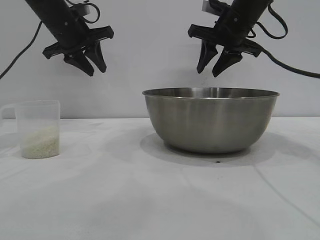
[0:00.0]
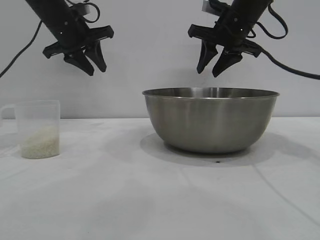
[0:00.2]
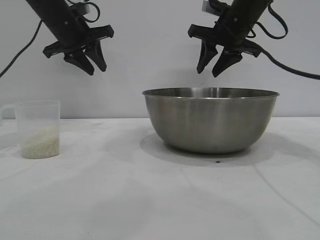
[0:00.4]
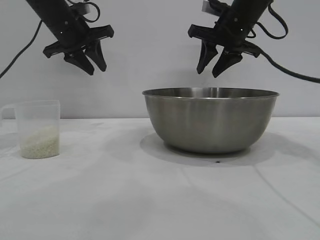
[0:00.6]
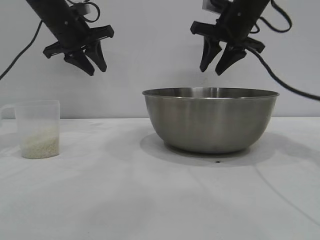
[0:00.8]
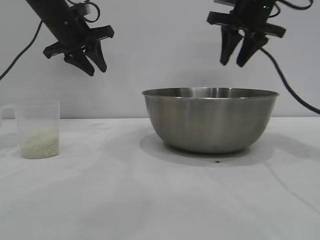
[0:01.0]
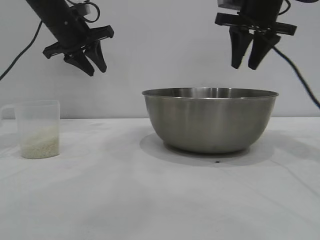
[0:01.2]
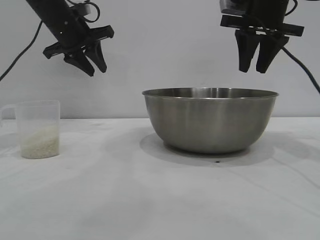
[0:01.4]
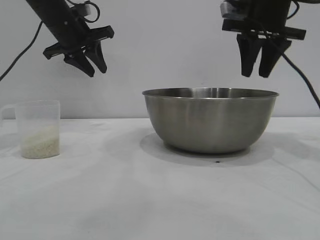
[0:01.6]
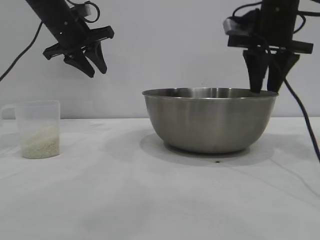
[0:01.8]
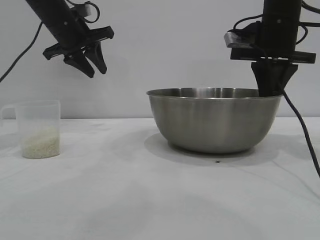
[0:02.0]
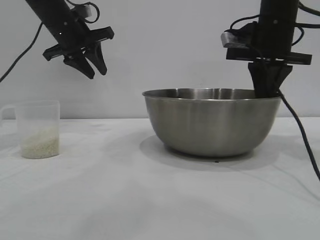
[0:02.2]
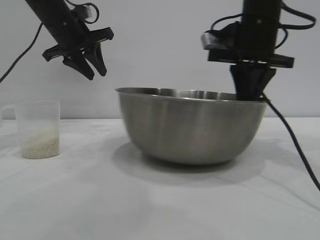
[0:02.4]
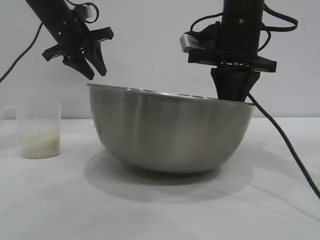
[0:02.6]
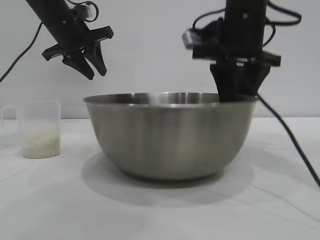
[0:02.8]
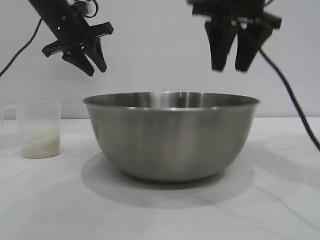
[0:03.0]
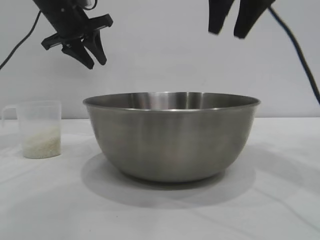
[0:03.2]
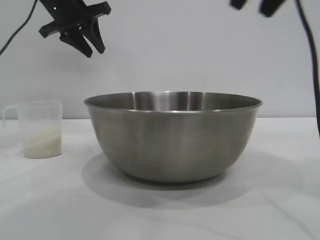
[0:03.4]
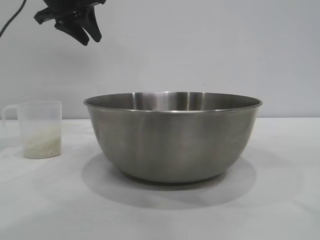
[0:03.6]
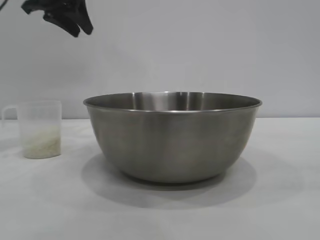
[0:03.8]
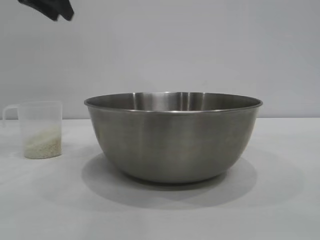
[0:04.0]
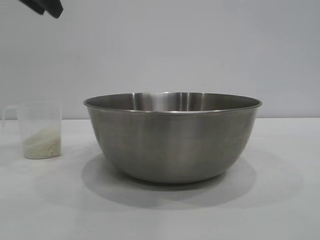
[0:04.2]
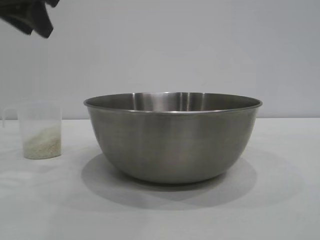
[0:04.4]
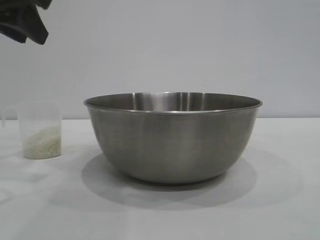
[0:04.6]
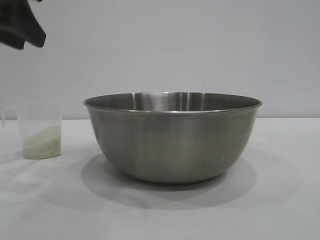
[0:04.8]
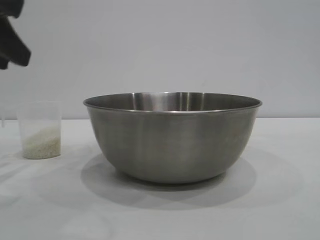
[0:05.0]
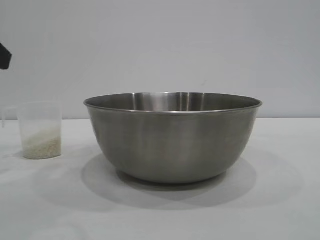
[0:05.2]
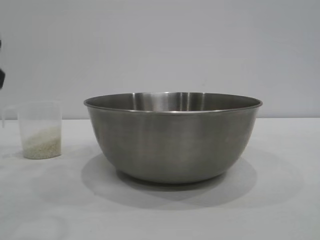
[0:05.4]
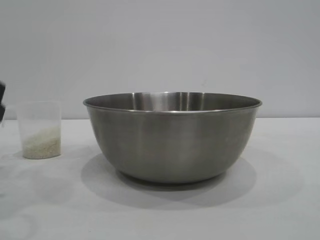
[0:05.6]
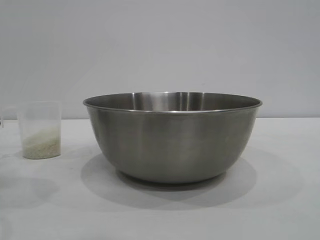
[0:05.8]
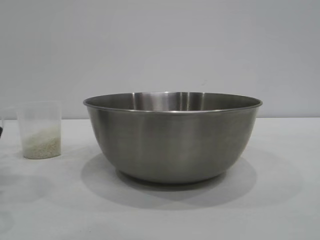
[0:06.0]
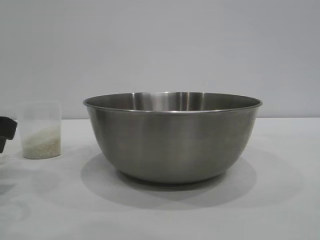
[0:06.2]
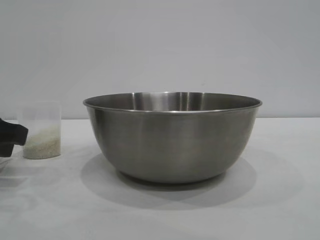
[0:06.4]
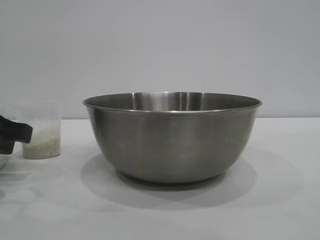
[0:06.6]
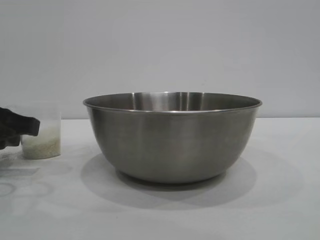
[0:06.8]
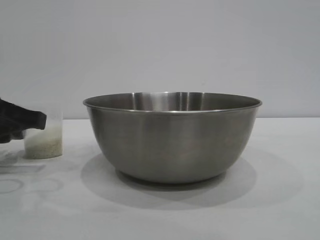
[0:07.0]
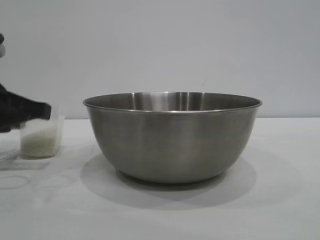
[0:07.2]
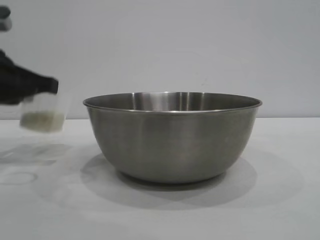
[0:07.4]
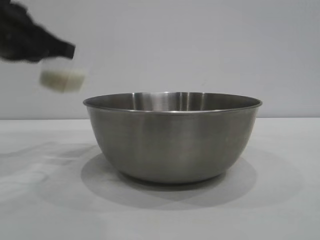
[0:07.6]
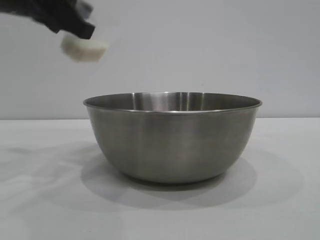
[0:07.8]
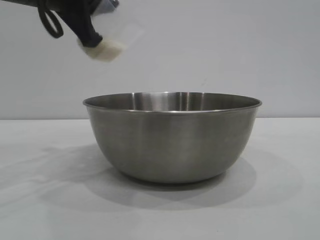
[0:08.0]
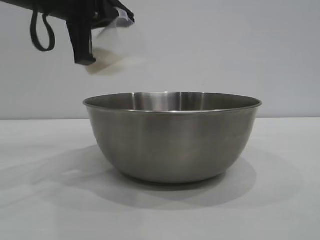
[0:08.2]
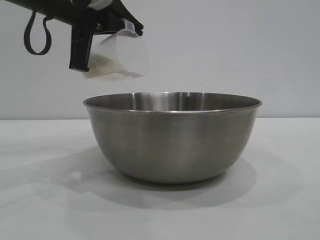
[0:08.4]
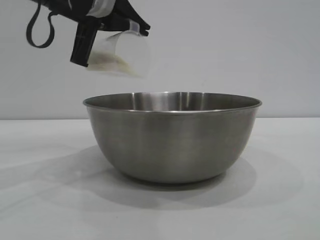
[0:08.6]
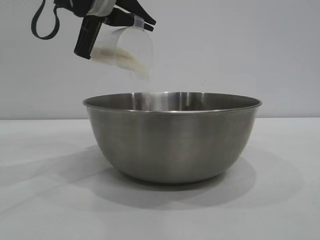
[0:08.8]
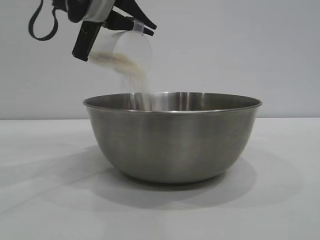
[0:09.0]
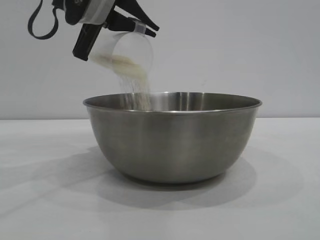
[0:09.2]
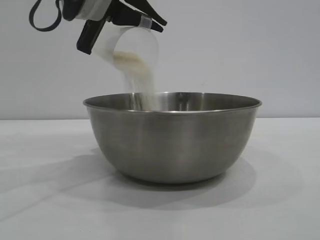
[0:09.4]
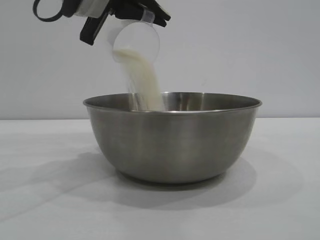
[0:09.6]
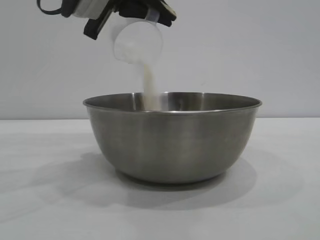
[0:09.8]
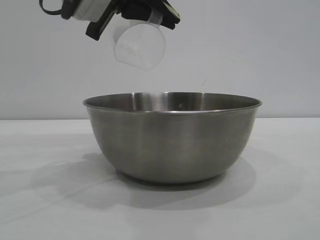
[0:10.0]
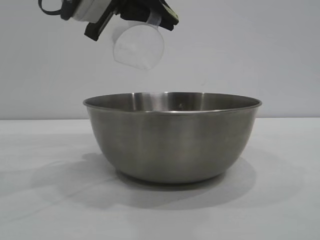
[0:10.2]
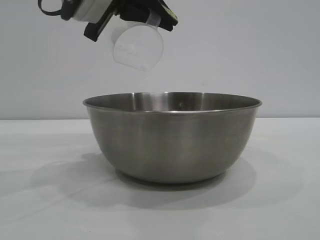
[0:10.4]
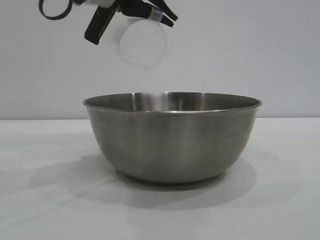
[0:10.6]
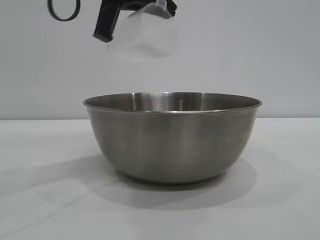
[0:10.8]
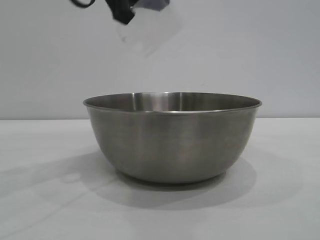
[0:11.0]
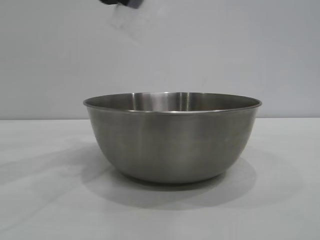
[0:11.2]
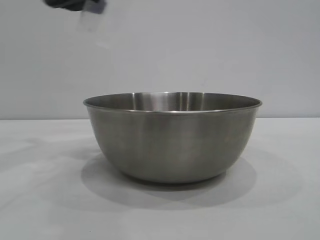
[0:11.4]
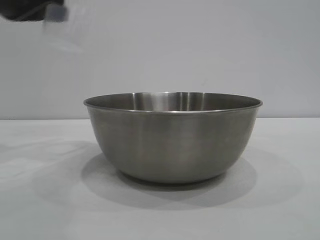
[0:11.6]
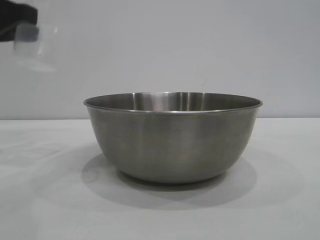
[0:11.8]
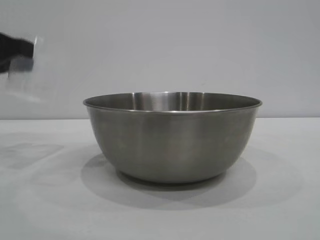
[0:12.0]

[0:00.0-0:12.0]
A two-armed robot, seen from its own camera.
Task of the whole recording: the right gripper grasp the rice container and place it in the center of the table, the left gripper grasp the rice scoop and pour the rice into the rice container.
Step, 0:00.0 to 0:03.0: Move the bowl to the center of view with the right gripper.
Step, 0:03.2 to 0:07.4: Pick up the cup with rice in it with the left gripper.
Step, 0:07.6 to 0:11.0: Pour the rice from the cup into the bowl with the left gripper.

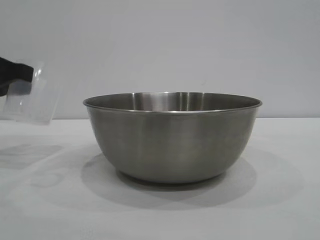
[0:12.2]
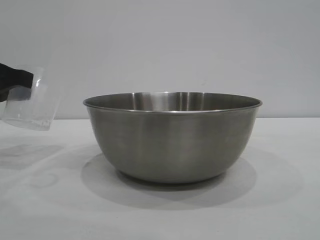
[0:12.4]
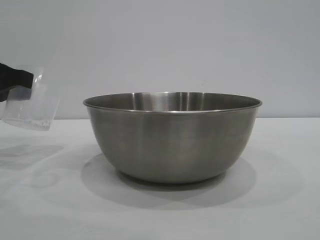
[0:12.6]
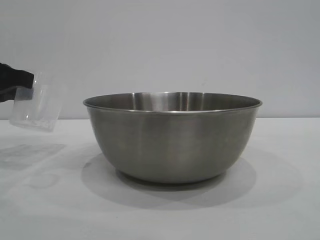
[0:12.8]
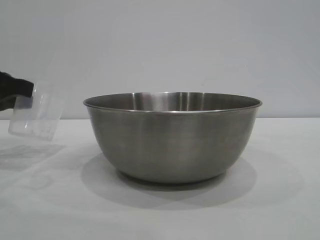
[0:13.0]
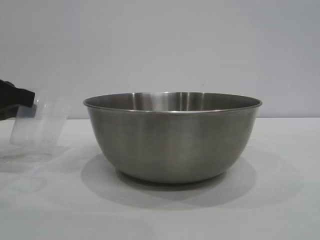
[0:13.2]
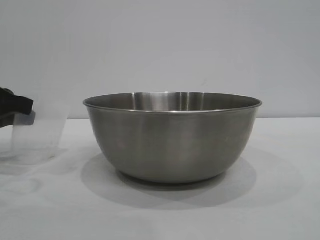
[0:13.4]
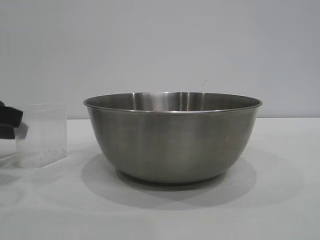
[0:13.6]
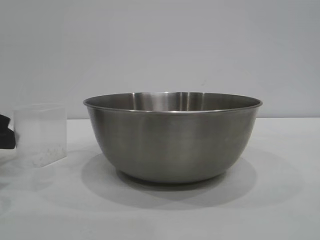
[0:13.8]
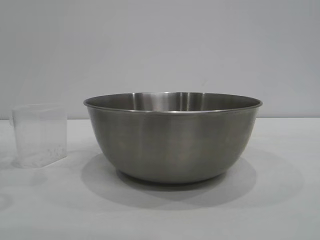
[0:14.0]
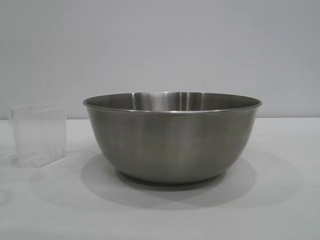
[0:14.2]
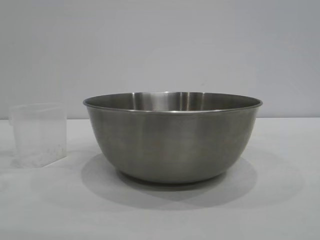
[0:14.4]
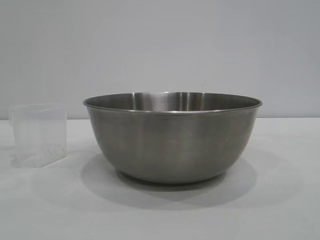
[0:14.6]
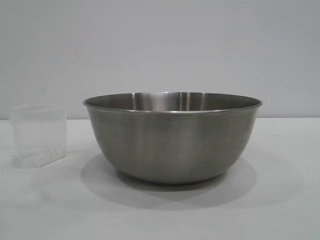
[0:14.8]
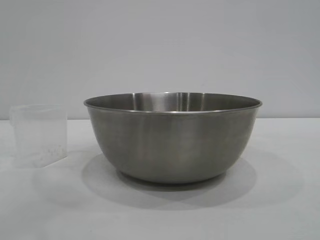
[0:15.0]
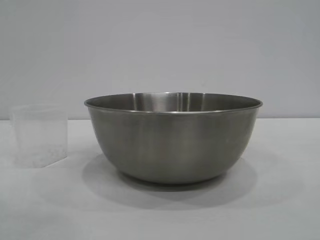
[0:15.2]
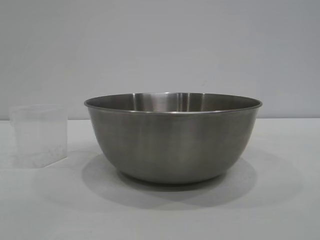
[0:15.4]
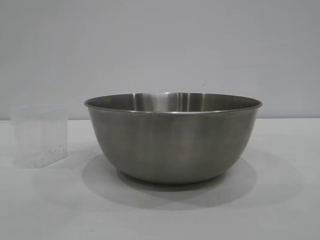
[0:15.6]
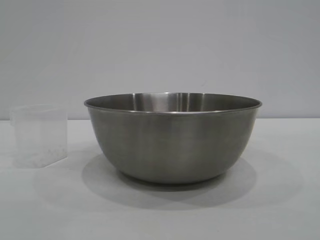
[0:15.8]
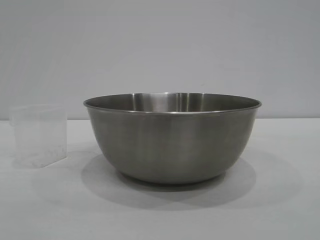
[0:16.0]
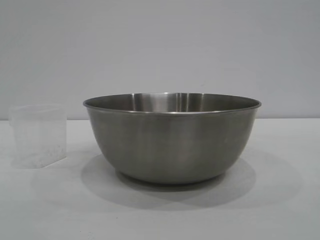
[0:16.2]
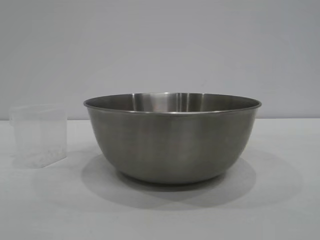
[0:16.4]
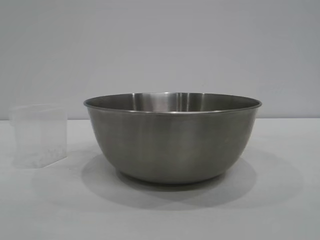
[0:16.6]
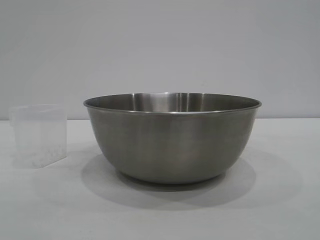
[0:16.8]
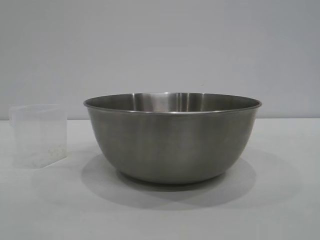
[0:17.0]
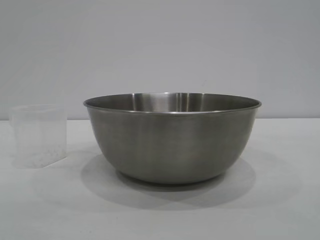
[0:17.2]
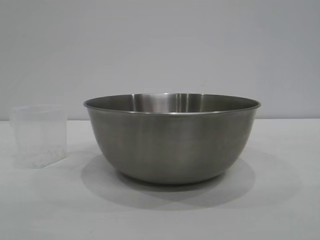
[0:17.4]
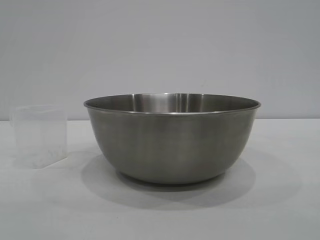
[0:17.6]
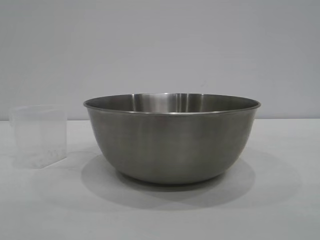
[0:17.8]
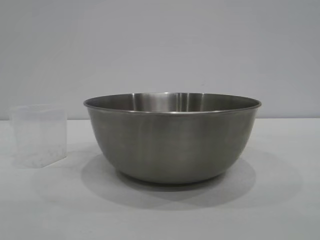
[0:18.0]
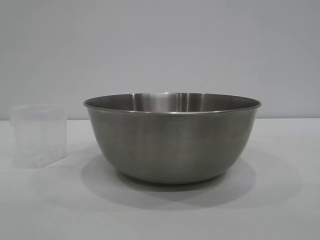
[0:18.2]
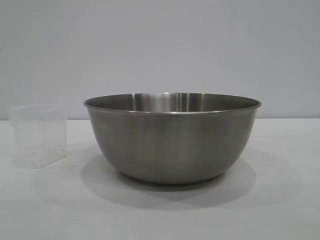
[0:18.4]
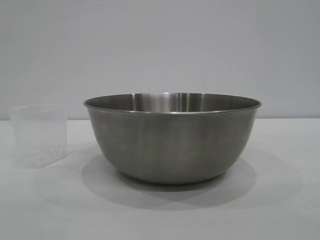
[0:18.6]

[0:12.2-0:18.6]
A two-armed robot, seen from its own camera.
Task of the whole recording: the right gripper grasp the rice container and place it in the center of the table, the left gripper grasp the rice scoop and pour the rice into the rice container.
Step, 0:12.2 to 0:14.0: Place the cup on the table with the left gripper.

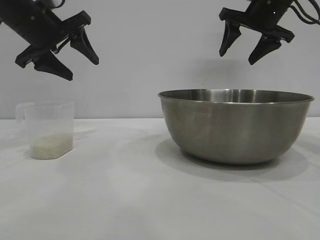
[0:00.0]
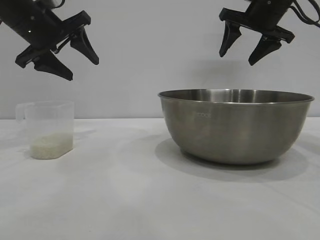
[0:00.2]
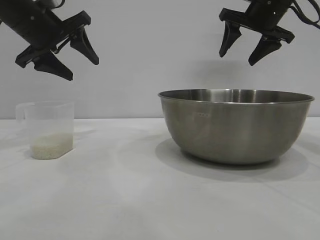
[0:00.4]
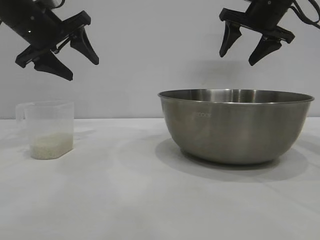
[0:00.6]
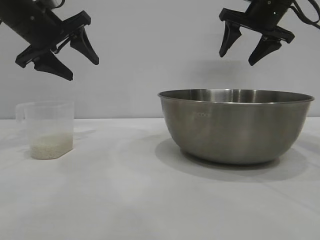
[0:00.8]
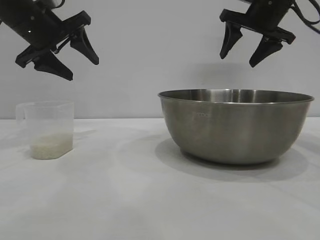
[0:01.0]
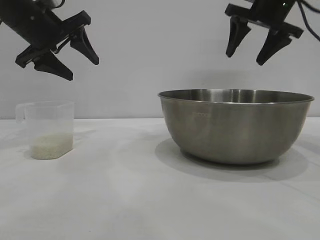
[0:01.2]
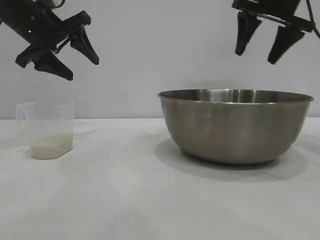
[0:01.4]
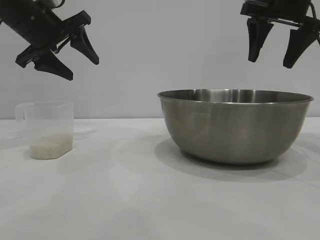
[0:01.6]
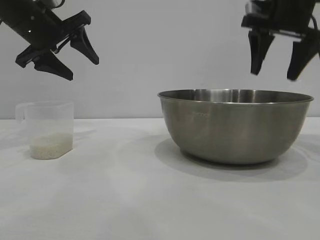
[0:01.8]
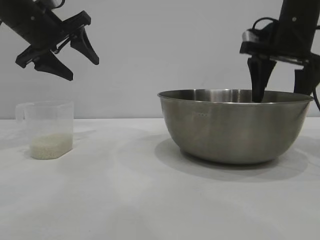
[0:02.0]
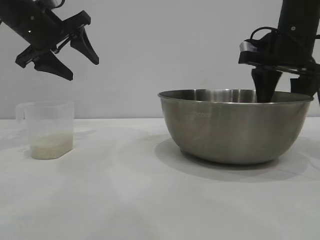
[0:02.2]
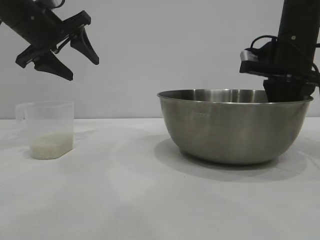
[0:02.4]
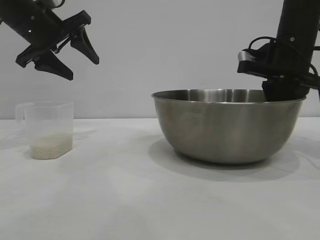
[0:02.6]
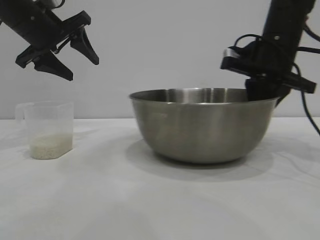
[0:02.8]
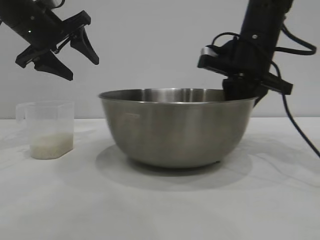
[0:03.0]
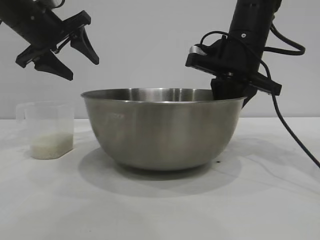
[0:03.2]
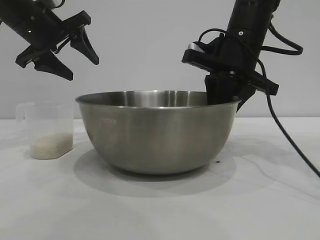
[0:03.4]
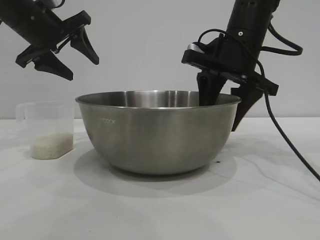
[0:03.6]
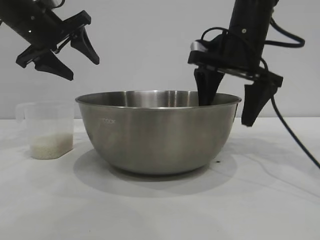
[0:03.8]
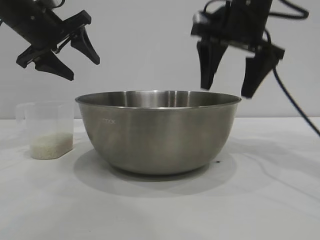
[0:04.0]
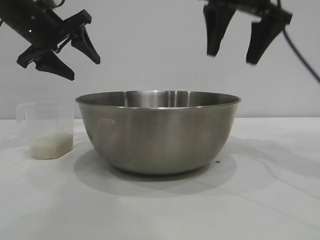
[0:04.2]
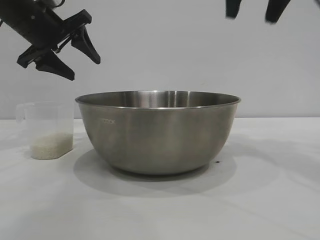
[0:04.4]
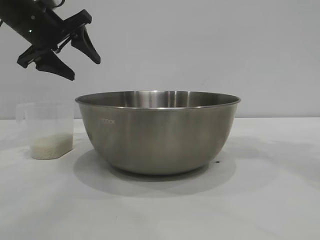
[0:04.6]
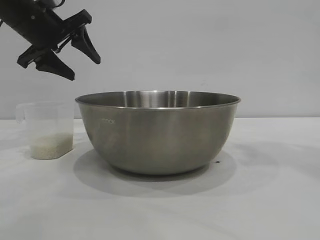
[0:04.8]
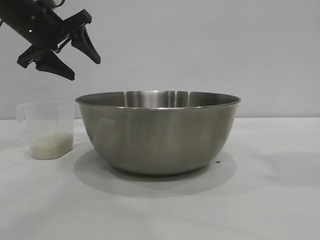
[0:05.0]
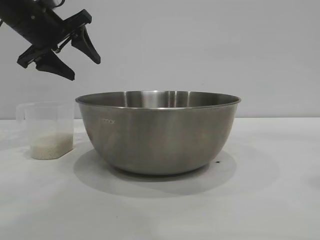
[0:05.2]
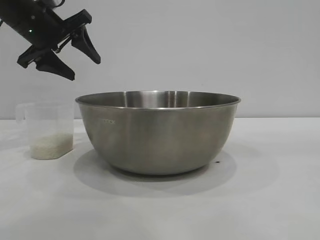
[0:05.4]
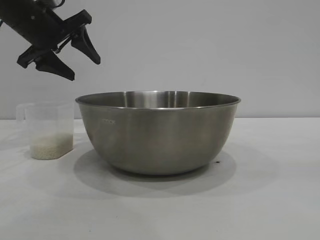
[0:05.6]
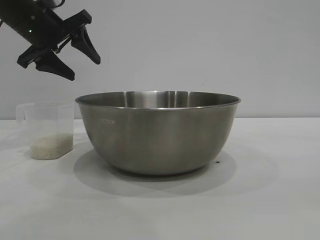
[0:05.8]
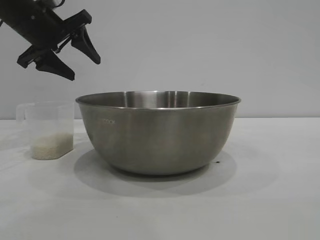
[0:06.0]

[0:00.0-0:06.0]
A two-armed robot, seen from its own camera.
Task of the whole recording: the right gripper grasp the rice container and place it in the center of the table, the left gripper grasp the rice scoop and pour the rice into the rice container.
Step, 0:00.0 to 0:04.2: Move the bowl to the center of view with the right gripper.
